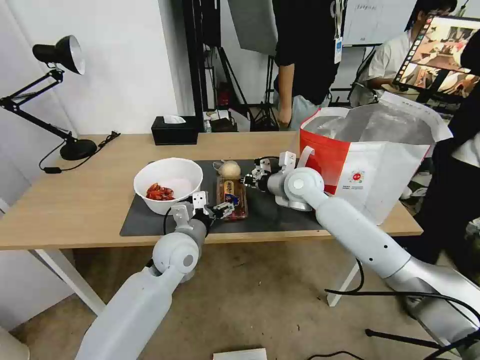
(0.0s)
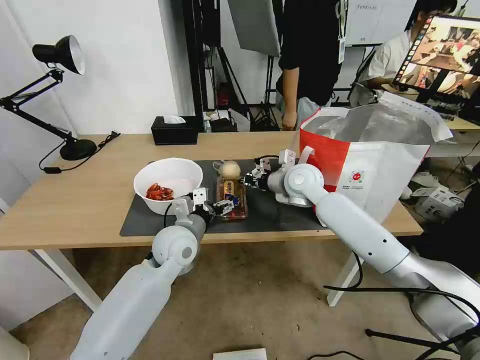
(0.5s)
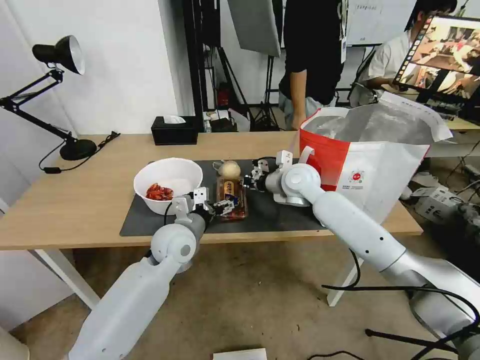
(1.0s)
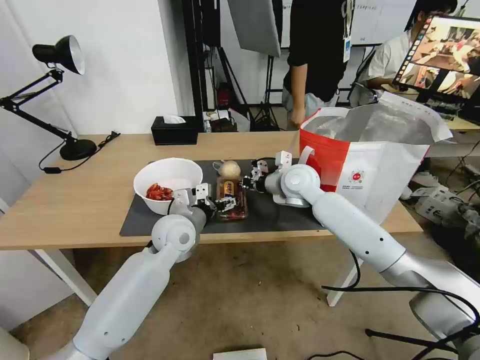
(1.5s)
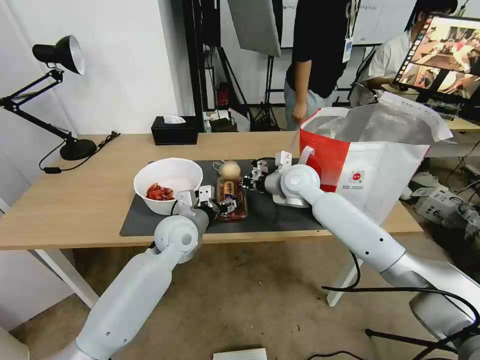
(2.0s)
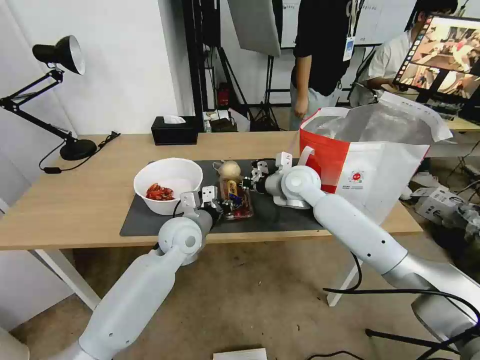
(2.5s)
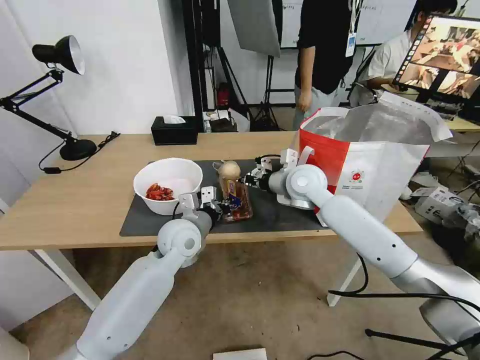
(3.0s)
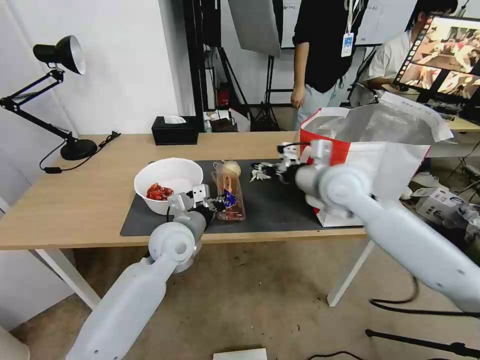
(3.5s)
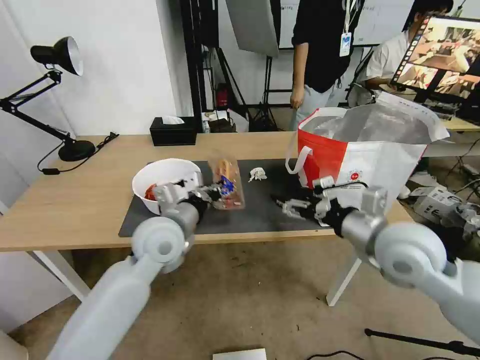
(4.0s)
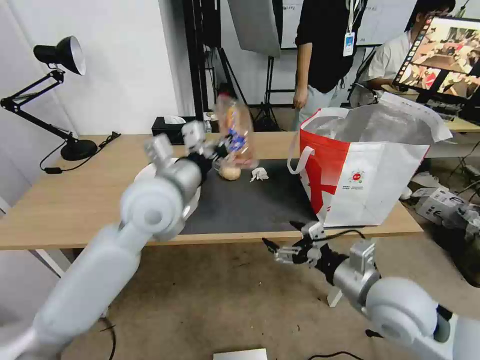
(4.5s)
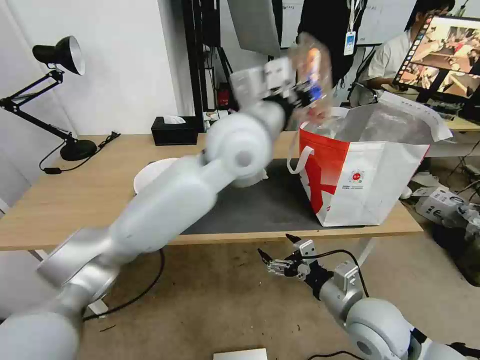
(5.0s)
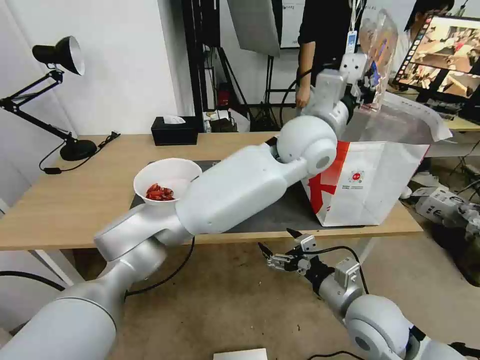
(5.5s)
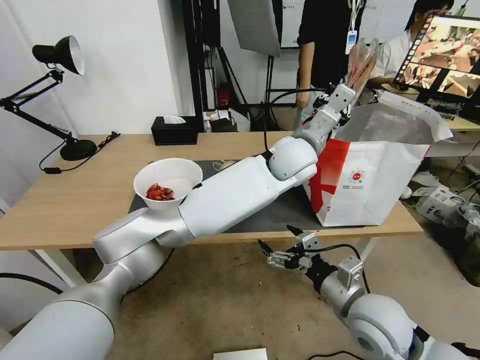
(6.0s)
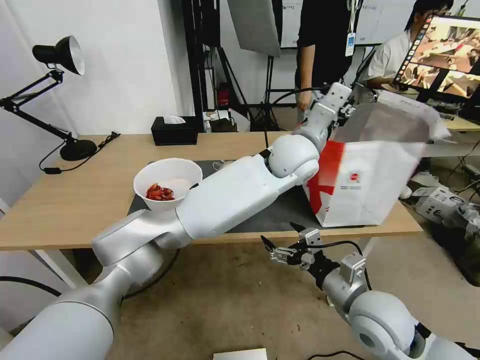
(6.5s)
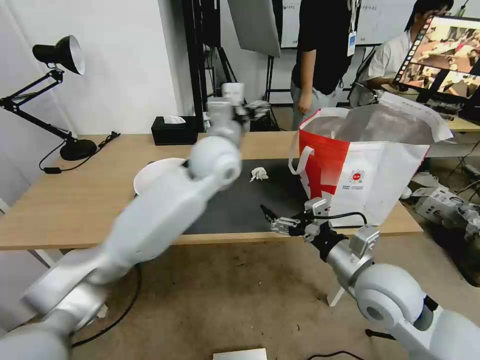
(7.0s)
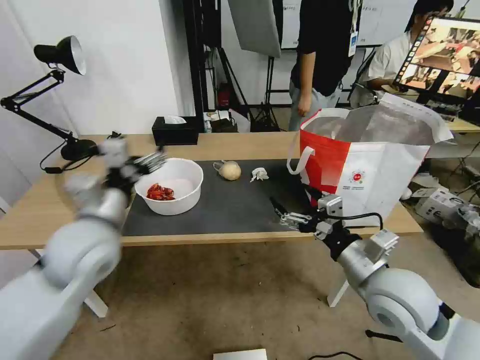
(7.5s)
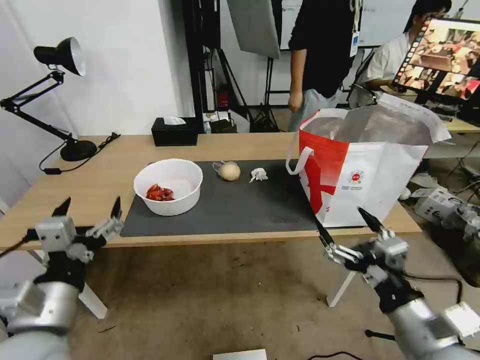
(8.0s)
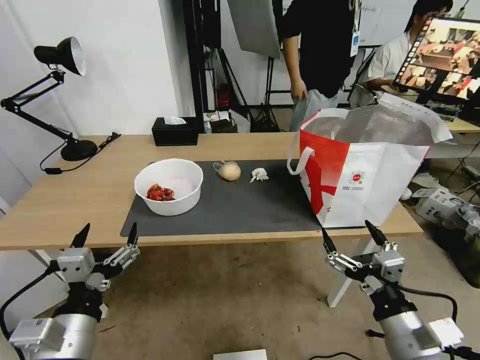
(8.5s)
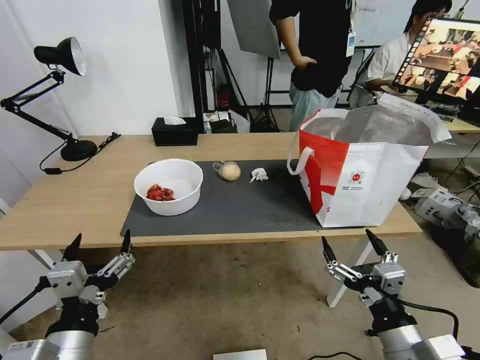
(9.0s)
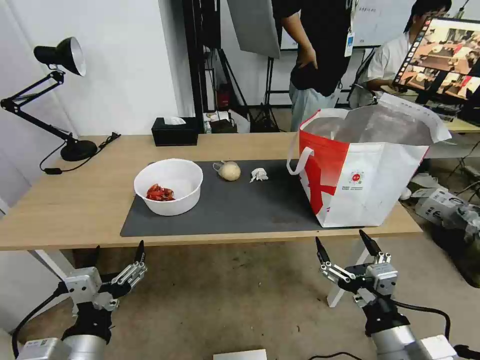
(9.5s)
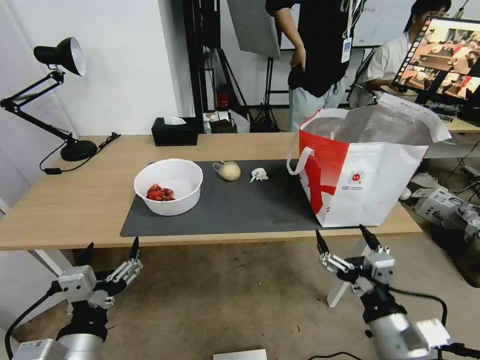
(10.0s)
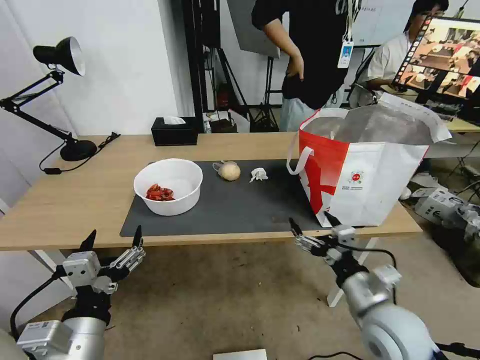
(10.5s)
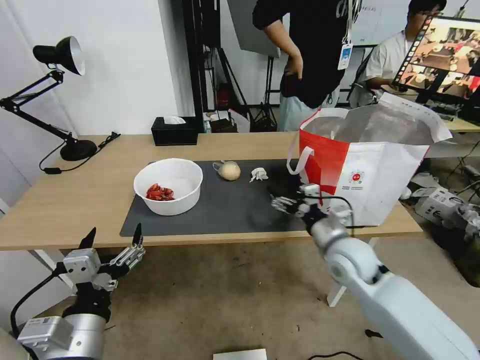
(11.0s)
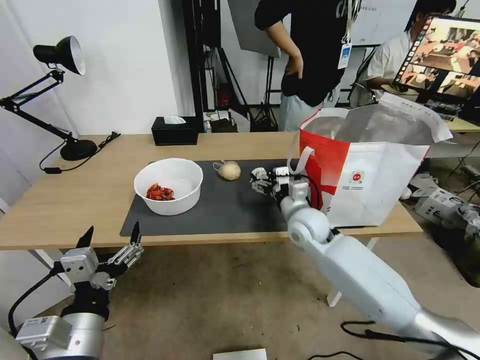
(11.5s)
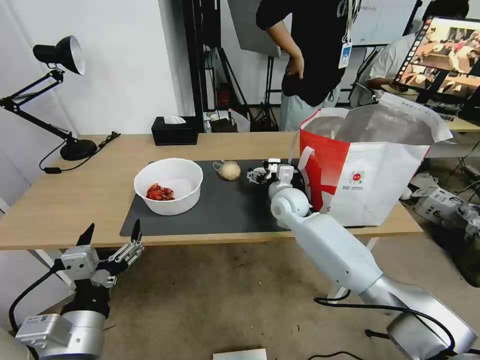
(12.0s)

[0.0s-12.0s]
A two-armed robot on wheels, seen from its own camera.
Task of the whole recording: Pick up the trash from the table and place it into the takeout bag.
0.0s to 2.0s: The grippers move only a little.
2.0s to 4.0s: The left gripper shifts roughly 10 cm upward and backward, and closes. The right gripper shifts some 25 cm backward and to the right, and opens up.
4.0s to 6.0s: The right gripper travels downward and backward by roughly 15 cm, while the left gripper is displaced to the right and forward by approximately 30 cm.
6.0s to 8.0s: The right gripper moves backward, upward and to the right, some 10 cm; the left gripper is displaced to the left and backward by roughly 50 cm, and opens up.
8.0s to 10.0s: The left gripper travels backward and downward by approximately 10 cm; the right gripper ends up about 5 cm from where it was.
10.0s to 12.0s: The right gripper shifts roughly 40 cm forward.

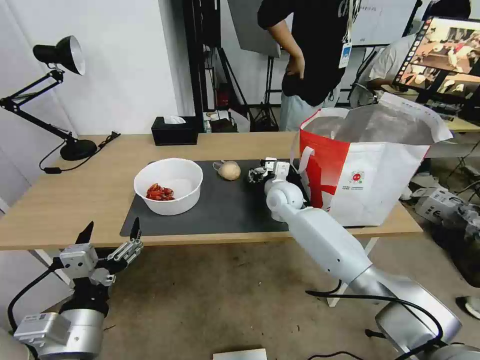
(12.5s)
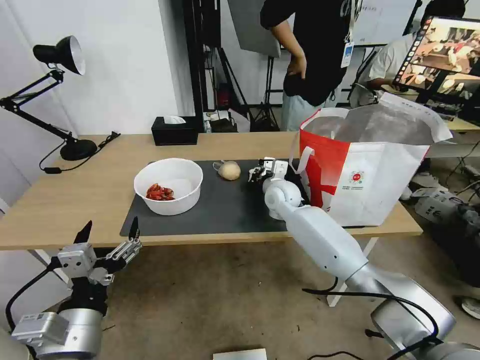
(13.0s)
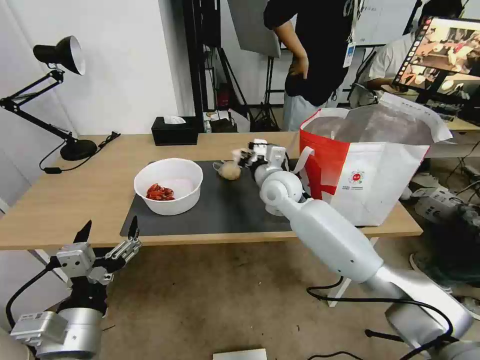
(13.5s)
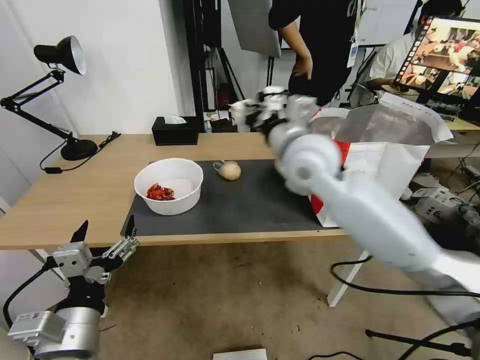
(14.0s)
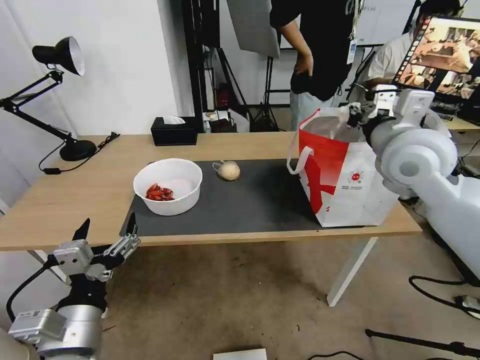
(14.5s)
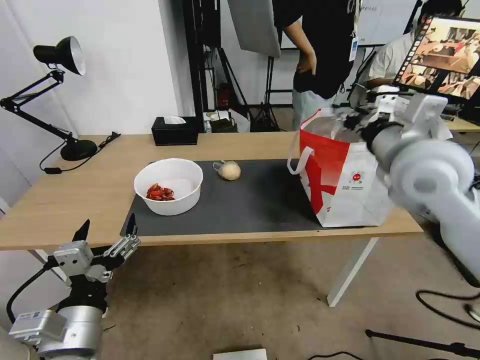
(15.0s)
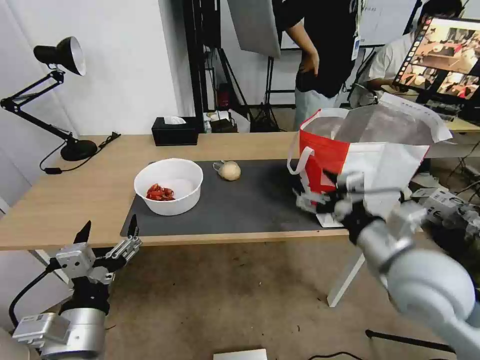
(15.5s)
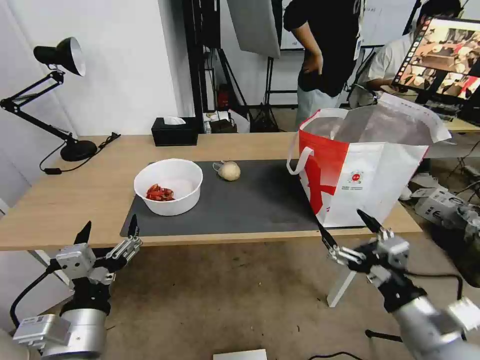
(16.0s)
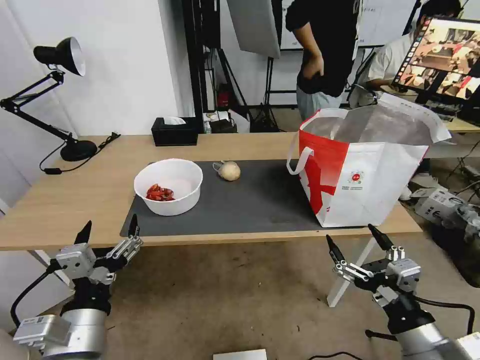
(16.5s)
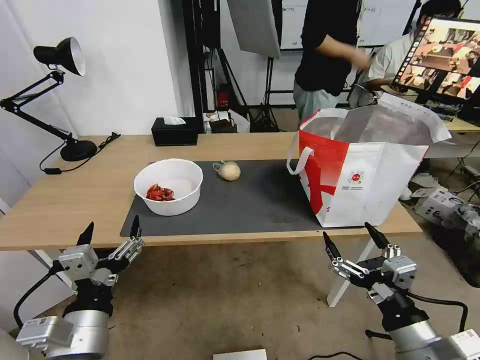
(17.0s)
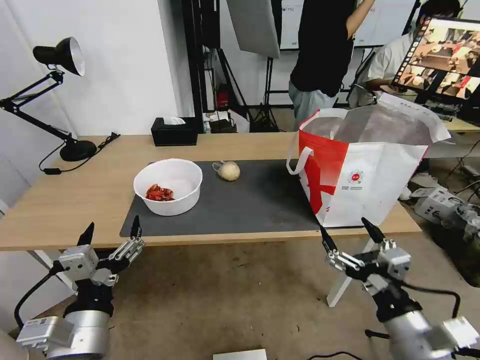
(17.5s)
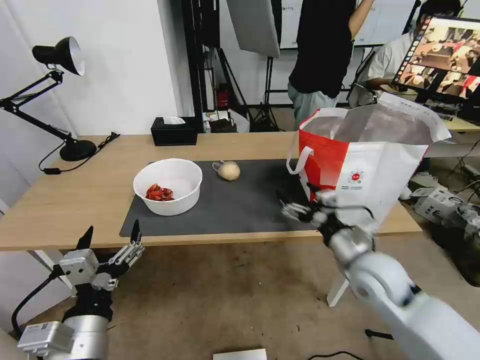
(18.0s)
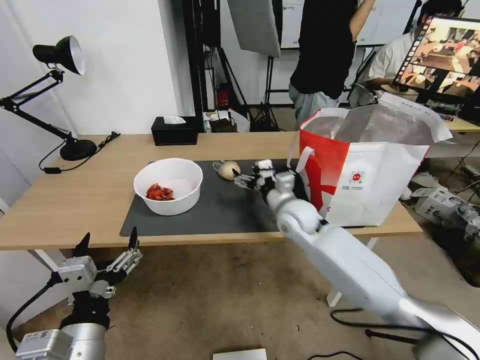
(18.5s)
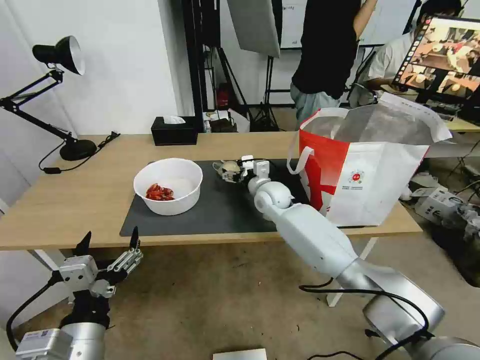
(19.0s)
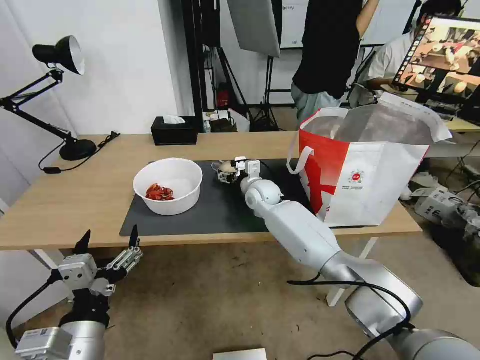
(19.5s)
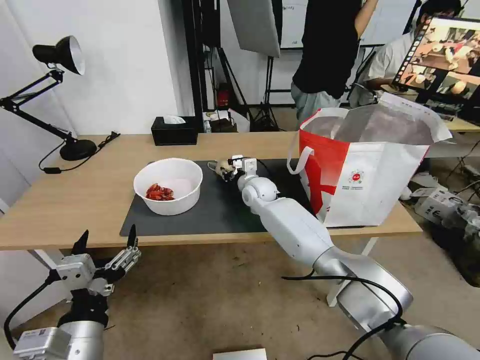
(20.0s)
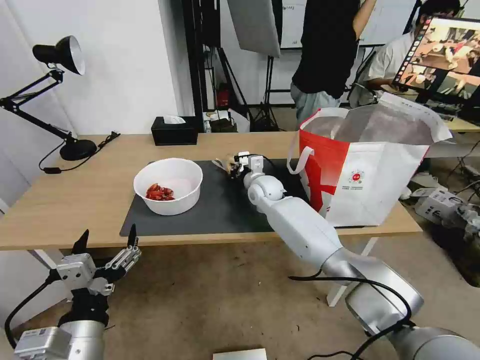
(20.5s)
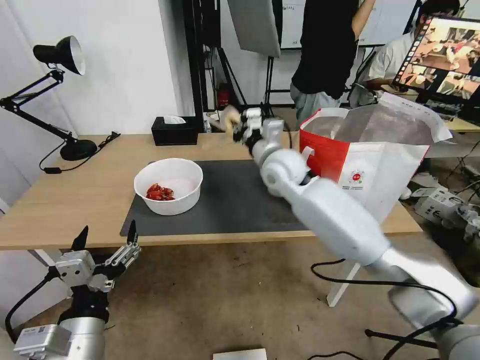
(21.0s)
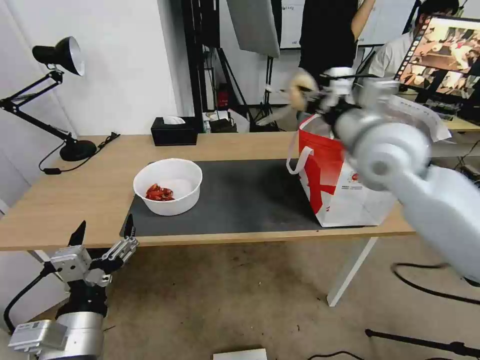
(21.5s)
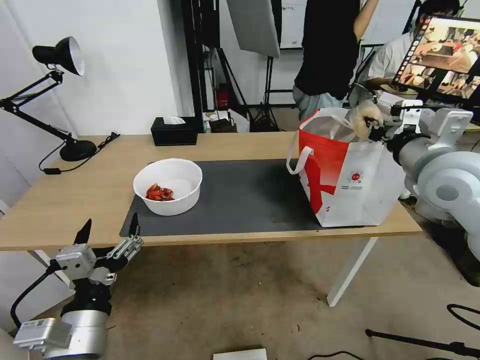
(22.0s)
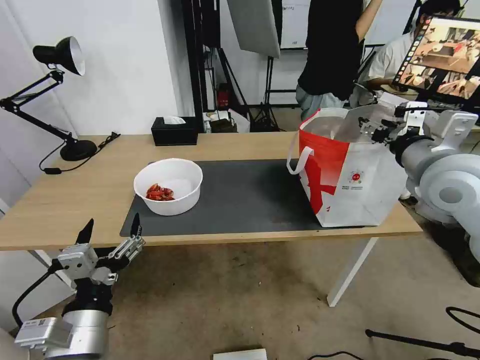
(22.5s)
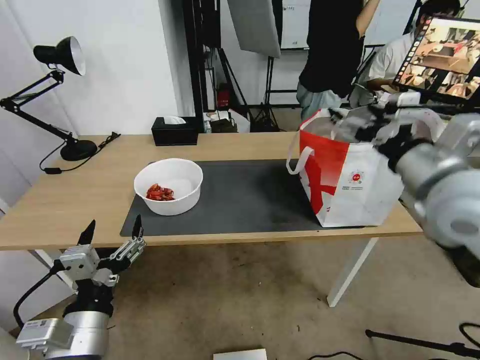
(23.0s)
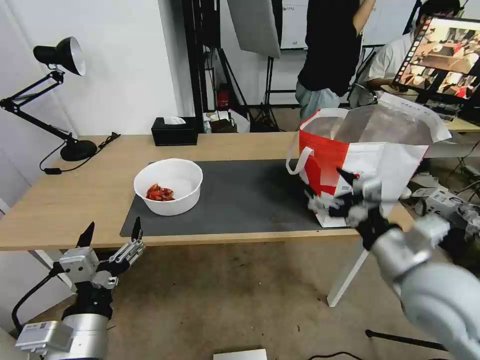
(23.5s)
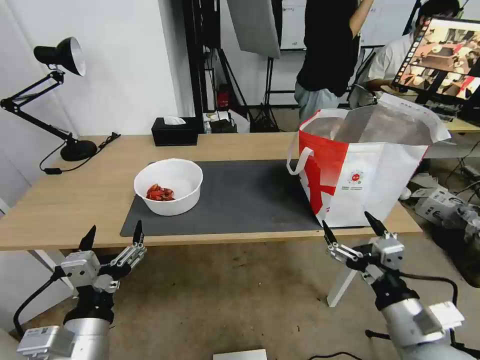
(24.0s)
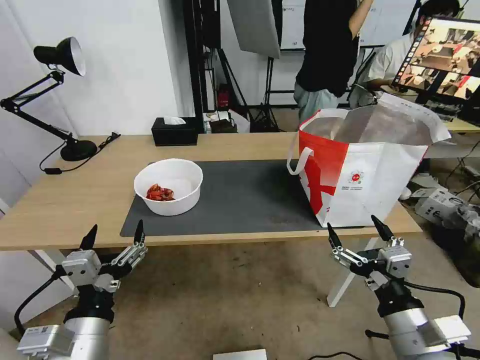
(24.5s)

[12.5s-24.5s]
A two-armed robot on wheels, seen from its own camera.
Task of the whole recording: Pick up the trash from the table and place it into the takeout bag.
12.5s to 14.5s: The right gripper moves upward, to the right and backward, roughly 30 cm, and closes up.
14.5s to 16.5s: The right gripper heads backward and downward, covering approximately 35 cm, and opens its fingers.
16.5s to 18.5s: The right gripper travels forward and to the left by roughly 35 cm.
18.5s to 20.5s: The right gripper is displaced forward and to the left by roughly 15 cm, and closes.
20.5s to 22.5s: The right gripper shifts about 40 cm to the right, upward and backward, and opens up.
22.5s to 24.5s: The right gripper heads backward and downward, covering approximately 30 cm, and opens up.

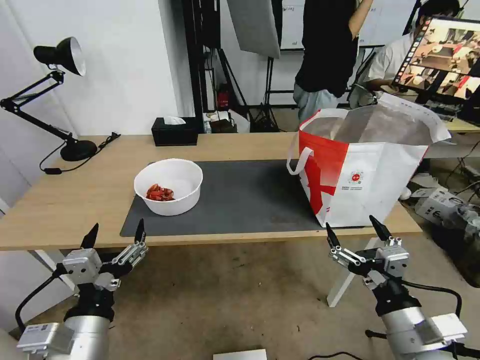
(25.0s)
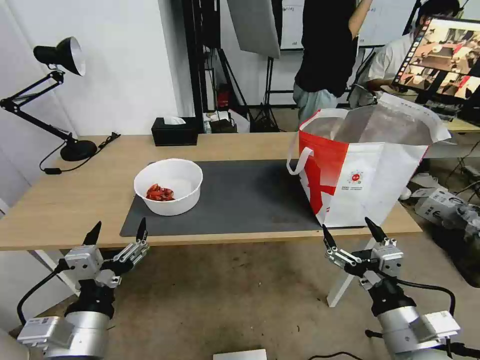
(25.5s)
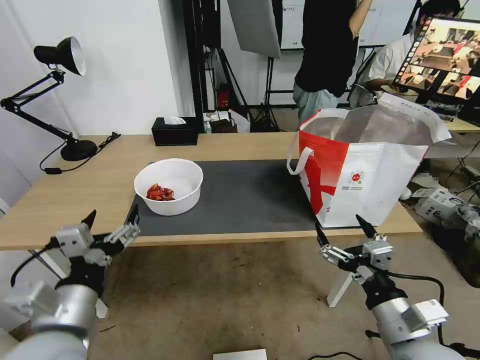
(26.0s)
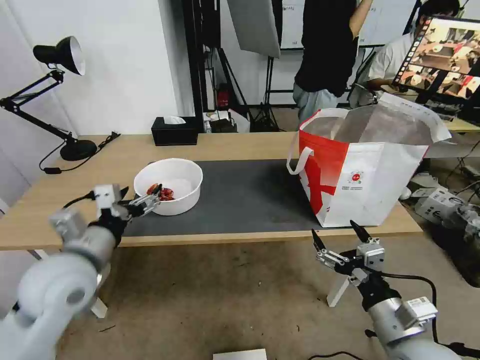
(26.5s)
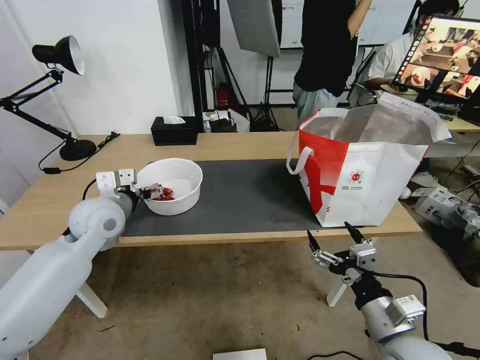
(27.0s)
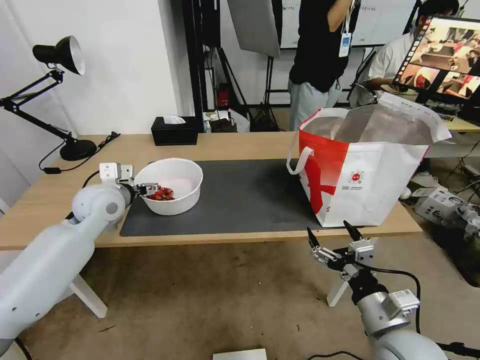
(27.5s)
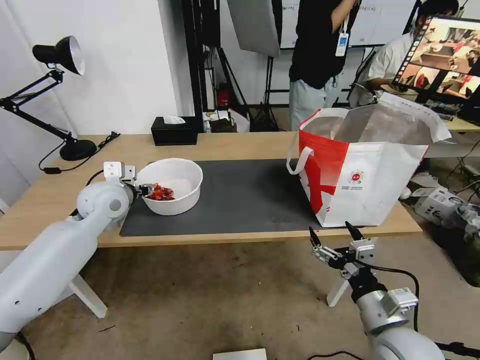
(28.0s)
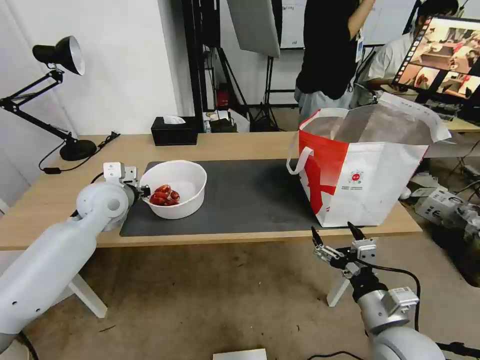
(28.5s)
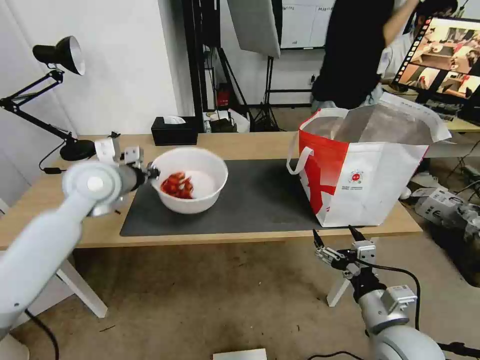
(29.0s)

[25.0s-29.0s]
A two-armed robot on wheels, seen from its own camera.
Task of the whole recording: Pick up the trash from the table and place it into the takeout bag.
25.0s to 27.0s: The left gripper travels forward by roughly 30 cm.
27.0s to 29.0s: The left gripper shifts some 10 cm upward, and closes.
